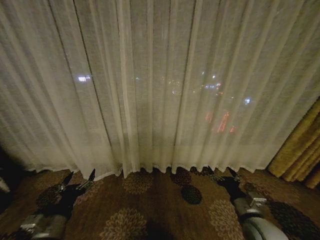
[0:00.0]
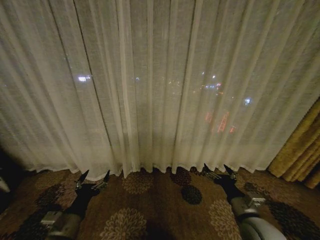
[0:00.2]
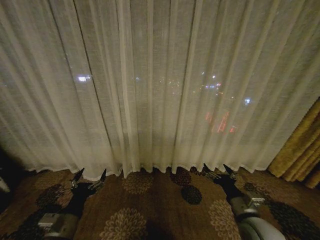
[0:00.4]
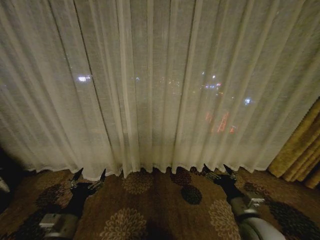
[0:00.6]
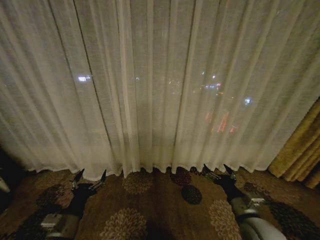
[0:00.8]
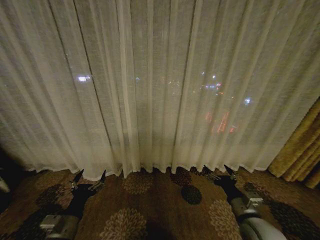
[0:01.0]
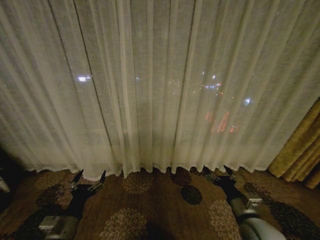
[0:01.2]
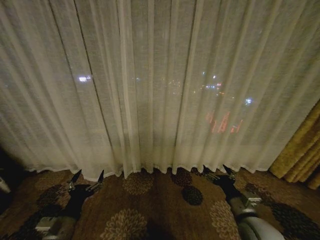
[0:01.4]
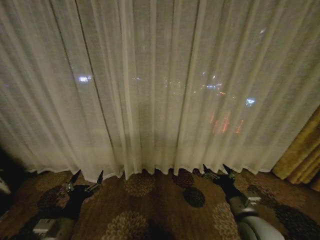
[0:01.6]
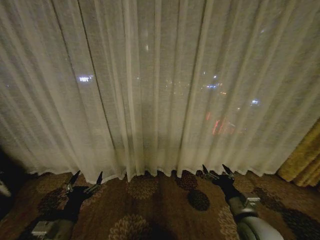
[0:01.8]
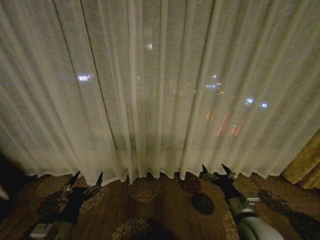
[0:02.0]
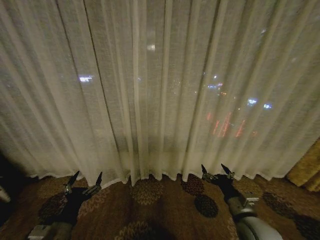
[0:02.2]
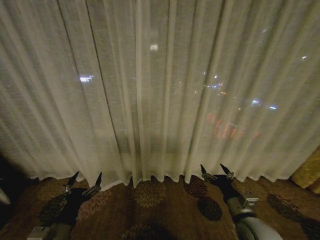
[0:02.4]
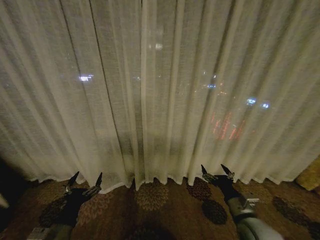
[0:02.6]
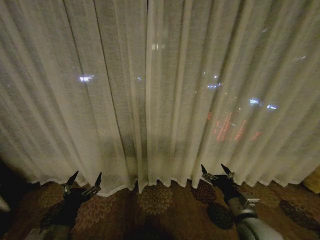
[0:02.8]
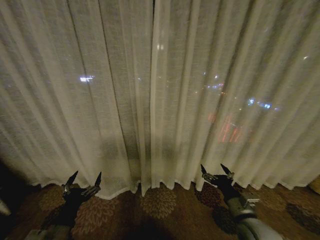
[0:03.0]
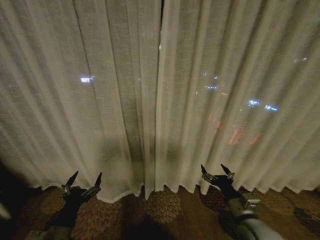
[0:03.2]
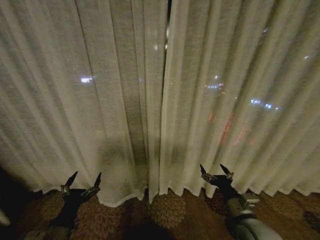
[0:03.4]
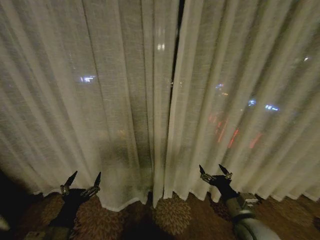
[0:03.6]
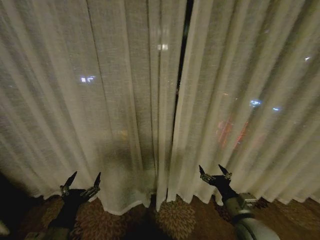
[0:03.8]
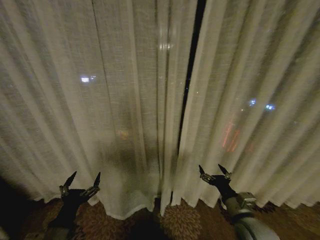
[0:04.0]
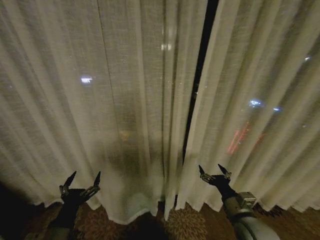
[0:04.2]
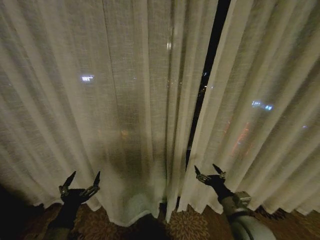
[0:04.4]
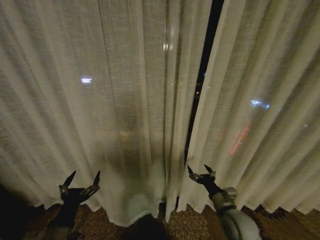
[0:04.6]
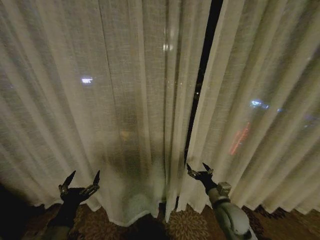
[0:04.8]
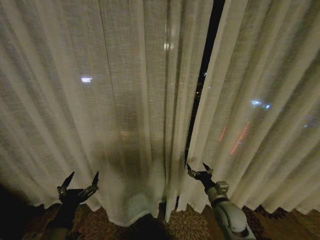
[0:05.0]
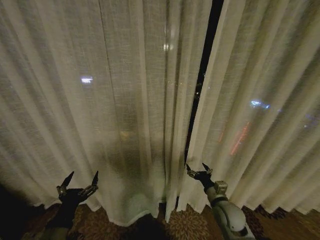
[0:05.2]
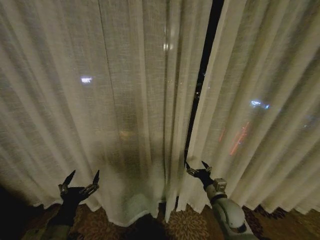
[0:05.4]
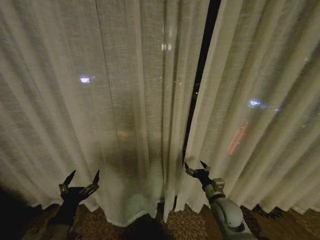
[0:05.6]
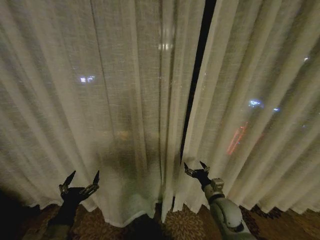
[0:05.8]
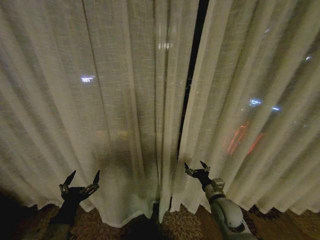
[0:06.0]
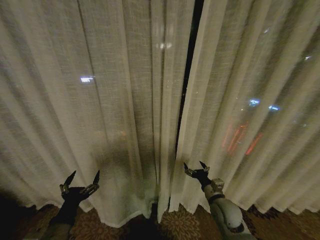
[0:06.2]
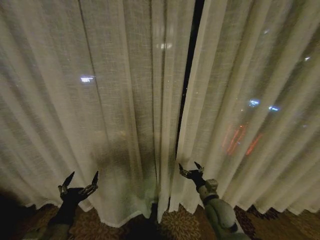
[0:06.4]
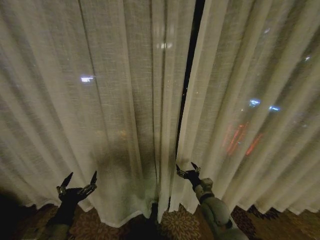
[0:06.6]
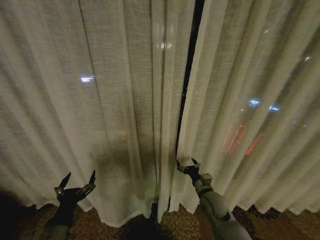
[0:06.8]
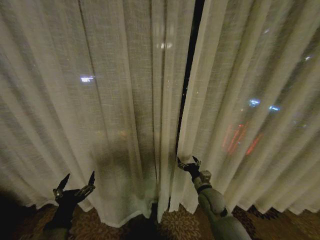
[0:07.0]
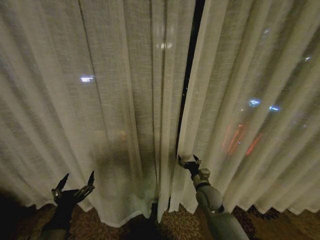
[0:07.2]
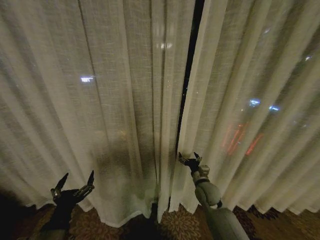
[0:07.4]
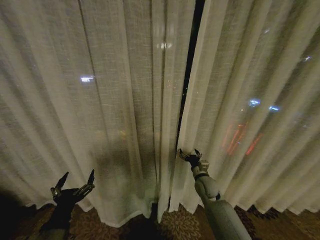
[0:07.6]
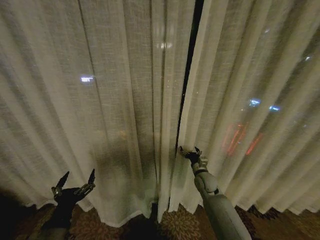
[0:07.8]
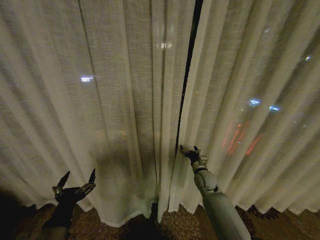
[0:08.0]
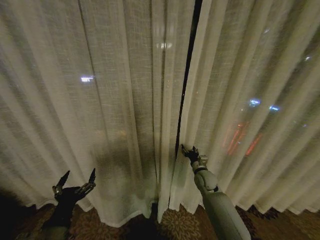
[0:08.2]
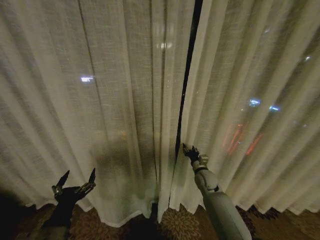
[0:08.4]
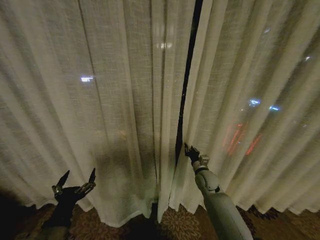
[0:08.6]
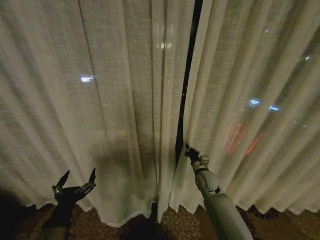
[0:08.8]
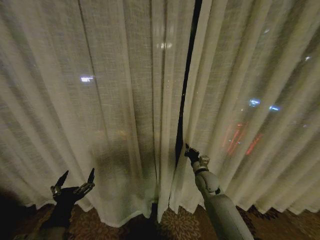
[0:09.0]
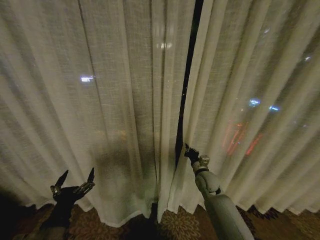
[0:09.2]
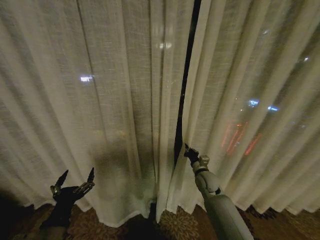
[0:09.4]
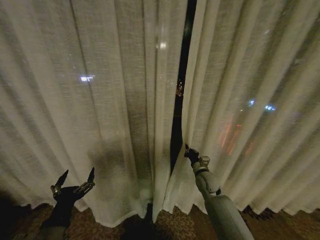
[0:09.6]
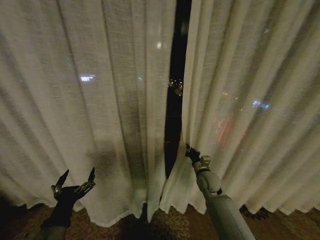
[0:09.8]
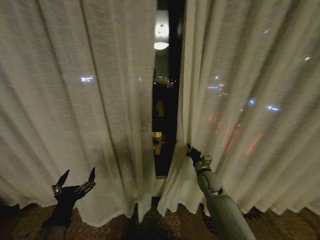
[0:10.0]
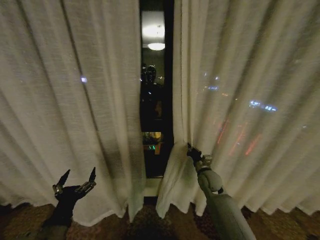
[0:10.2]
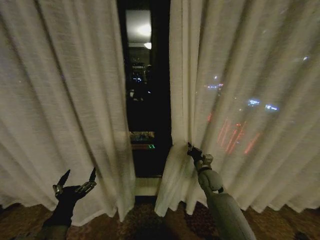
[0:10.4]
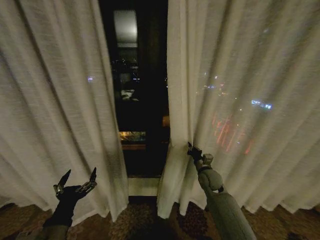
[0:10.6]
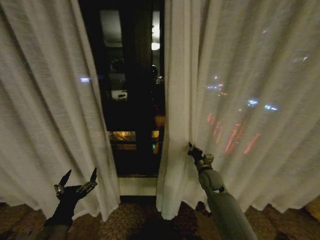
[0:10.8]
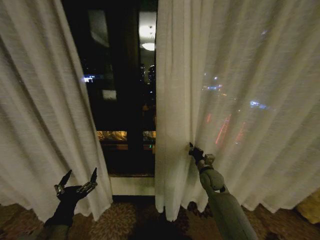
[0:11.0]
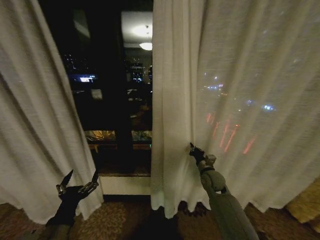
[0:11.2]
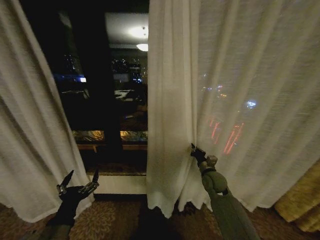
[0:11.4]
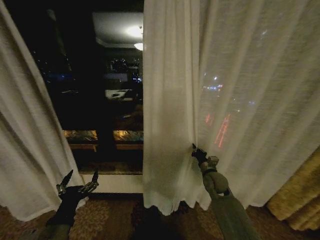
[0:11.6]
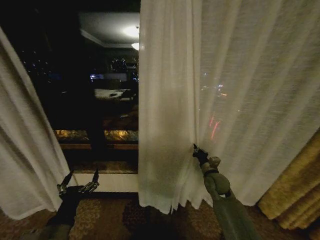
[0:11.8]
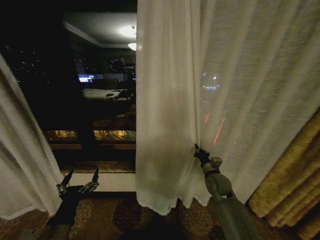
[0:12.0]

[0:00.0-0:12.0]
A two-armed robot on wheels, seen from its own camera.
Task of the whole recording: Open the curtains by pulling them apart, changing their state from closed to fully open.
0:01.6 to 0:03.0: There are only small adjustments of the grippers.
0:04.4 to 0:06.0: The right gripper goes some 10 cm forward.
0:06.0 to 0:07.6: The right gripper travels forward by approximately 10 cm.
0:07.6 to 0:09.0: The right gripper closes up.

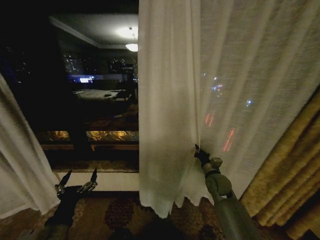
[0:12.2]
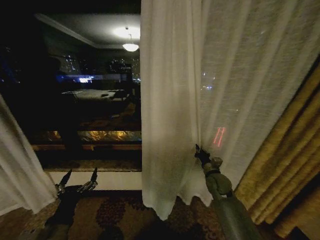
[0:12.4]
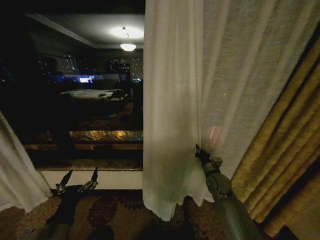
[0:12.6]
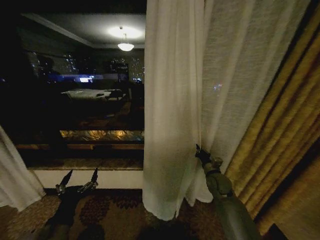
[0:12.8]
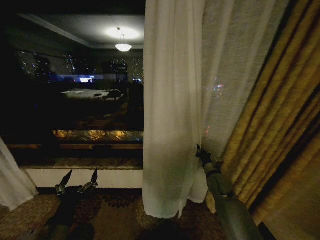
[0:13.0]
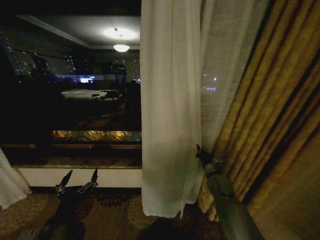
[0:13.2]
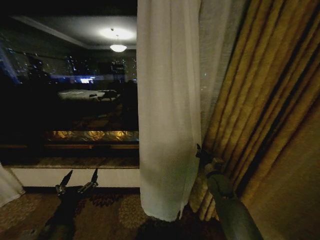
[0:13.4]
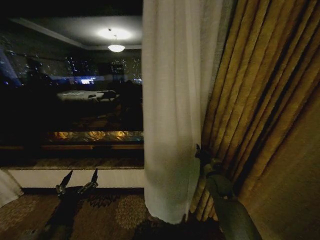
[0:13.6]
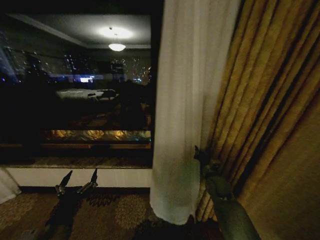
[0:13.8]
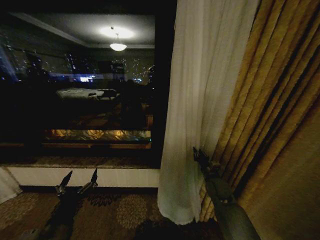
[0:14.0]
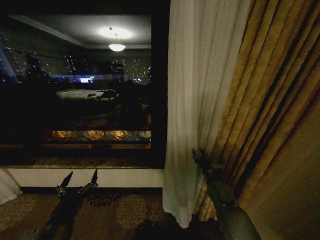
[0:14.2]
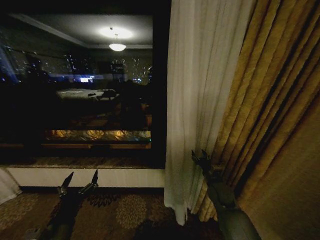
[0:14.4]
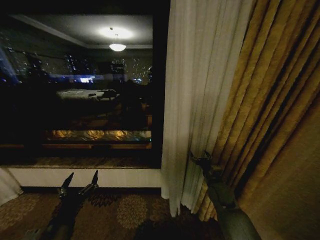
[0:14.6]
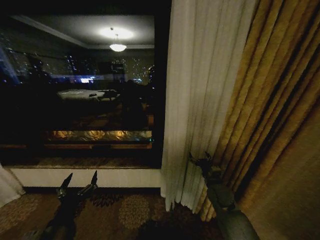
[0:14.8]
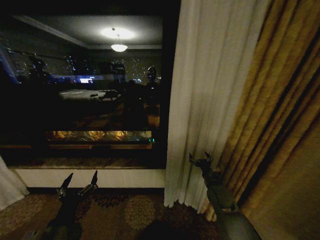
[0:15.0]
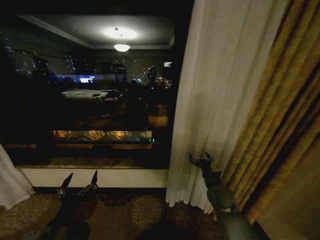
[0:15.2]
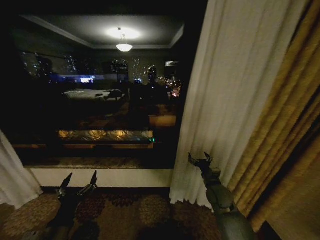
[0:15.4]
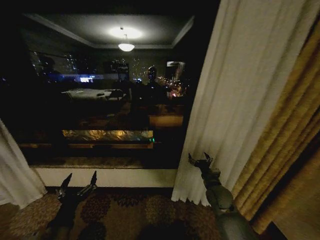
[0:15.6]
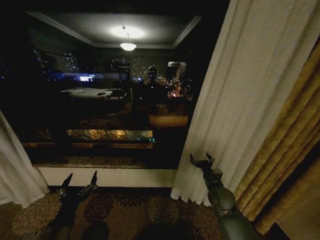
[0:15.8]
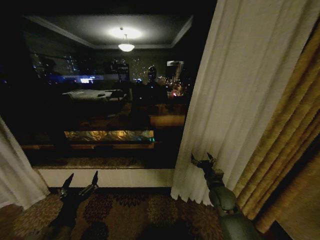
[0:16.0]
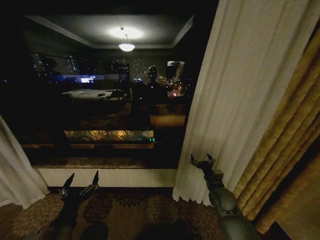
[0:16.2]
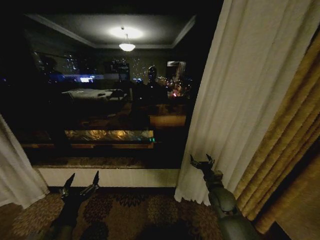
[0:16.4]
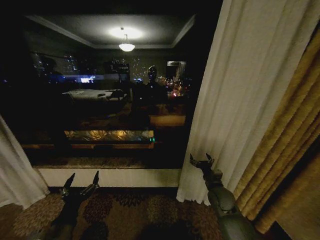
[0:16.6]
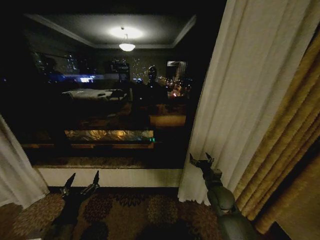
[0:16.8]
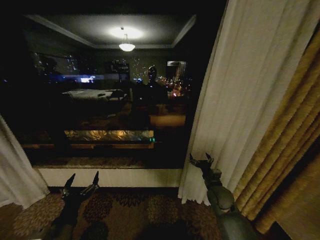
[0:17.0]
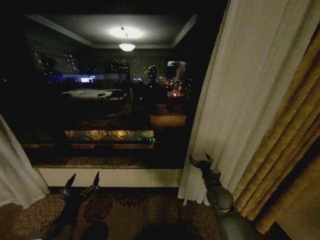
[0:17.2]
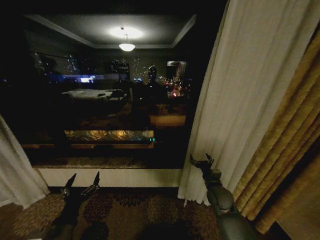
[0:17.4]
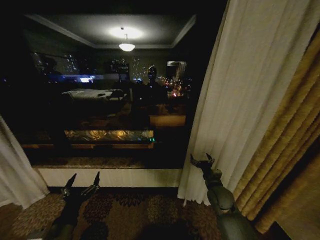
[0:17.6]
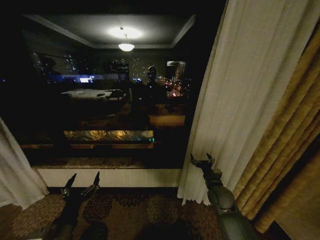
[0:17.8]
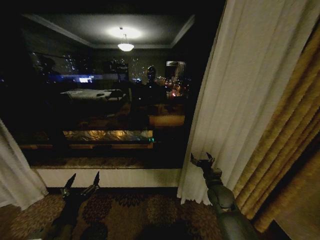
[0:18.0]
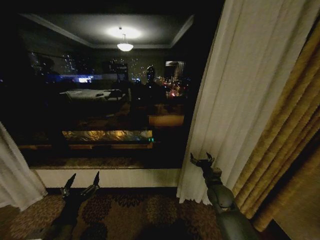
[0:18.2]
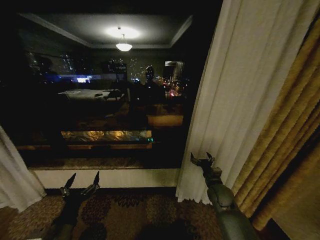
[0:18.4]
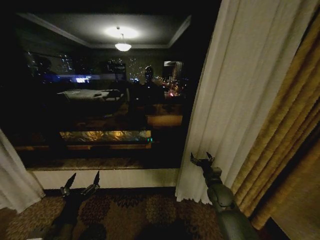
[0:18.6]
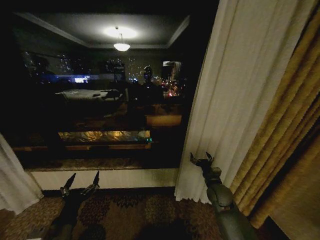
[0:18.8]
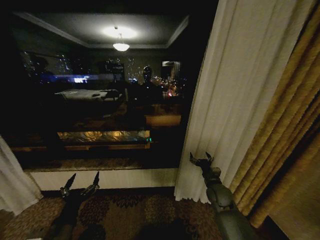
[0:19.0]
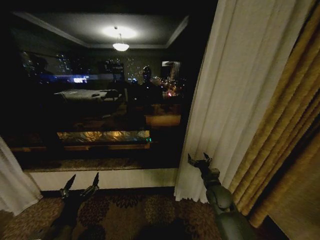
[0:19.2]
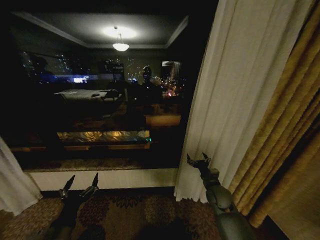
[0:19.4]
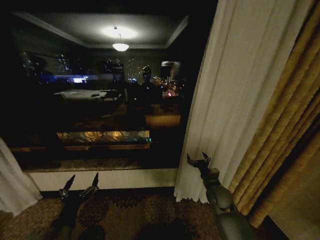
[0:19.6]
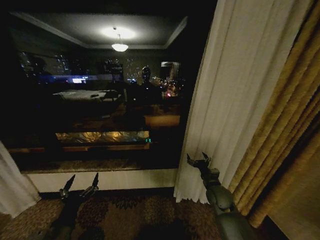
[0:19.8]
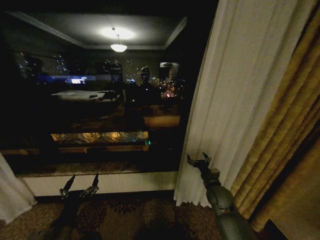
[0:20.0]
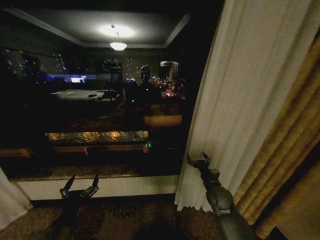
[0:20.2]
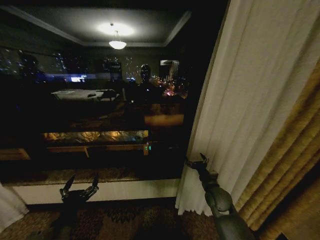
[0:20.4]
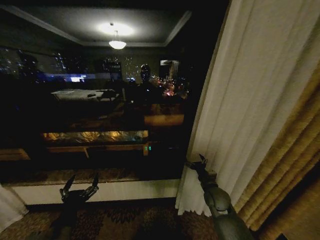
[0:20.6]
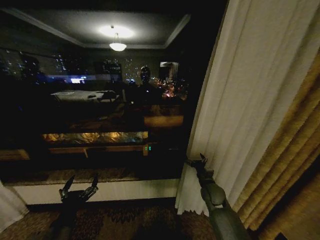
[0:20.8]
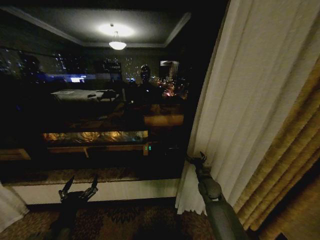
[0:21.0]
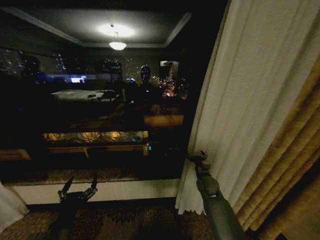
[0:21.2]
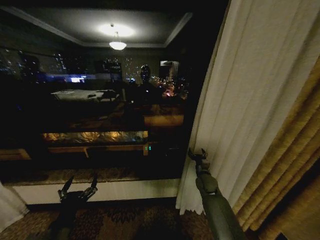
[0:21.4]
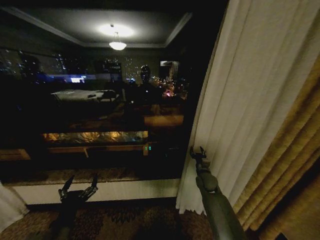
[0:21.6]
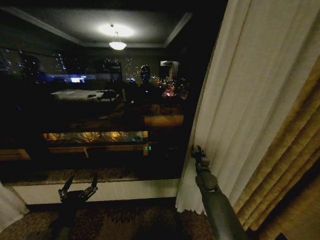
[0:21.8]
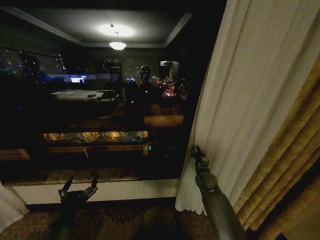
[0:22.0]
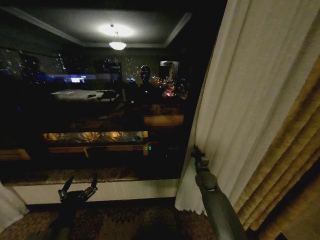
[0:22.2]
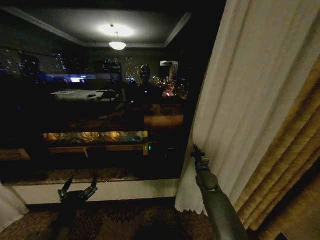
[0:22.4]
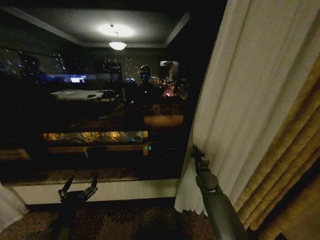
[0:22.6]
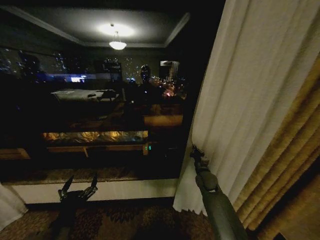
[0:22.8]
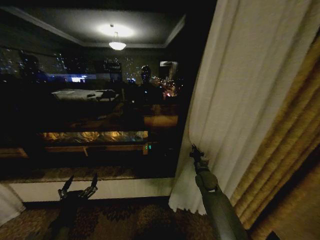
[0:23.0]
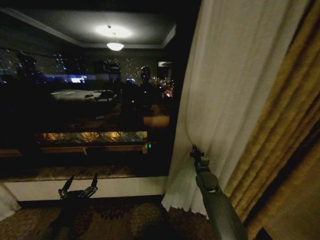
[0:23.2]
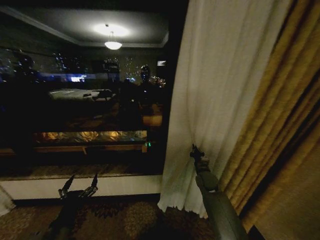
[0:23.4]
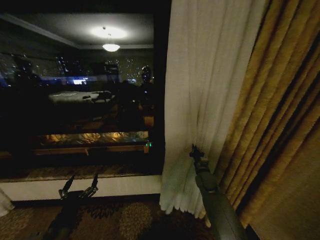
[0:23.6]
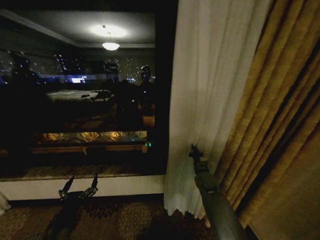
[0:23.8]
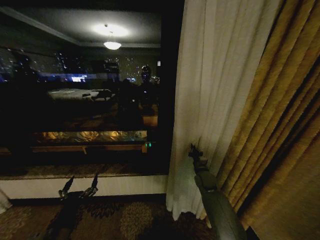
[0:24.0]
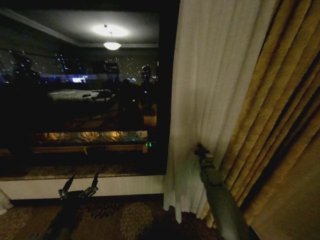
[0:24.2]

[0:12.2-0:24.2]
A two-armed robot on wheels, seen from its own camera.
Task of the whole recording: Open the curtains by pulling them apart, changing their state from closed to fully open.
0:13.8 to 0:15.2: The right gripper opens.
0:16.6 to 0:18.2: Neither gripper changes place.
0:18.2 to 0:19.8: The two grippers keep their place.
0:19.8 to 0:21.2: The right gripper shifts roughly 5 cm forward.
0:21.2 to 0:22.6: The right gripper closes up.
